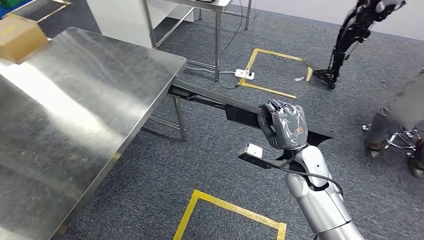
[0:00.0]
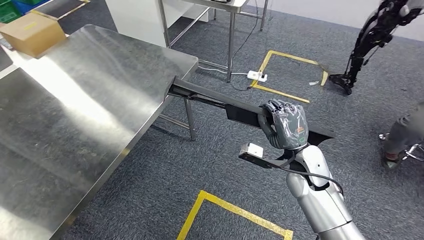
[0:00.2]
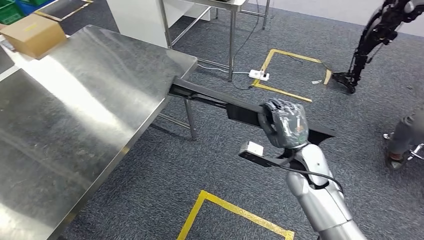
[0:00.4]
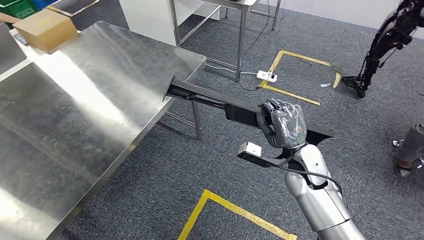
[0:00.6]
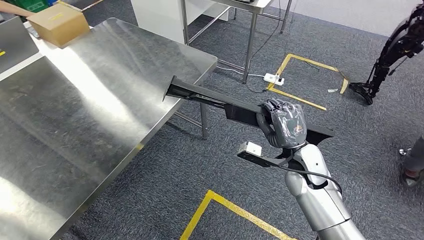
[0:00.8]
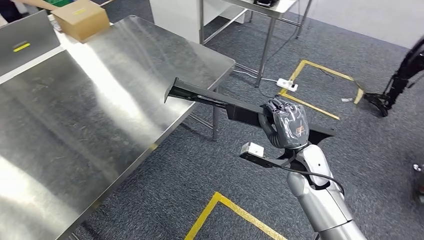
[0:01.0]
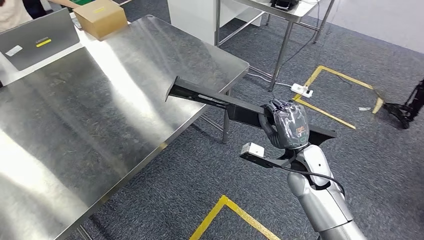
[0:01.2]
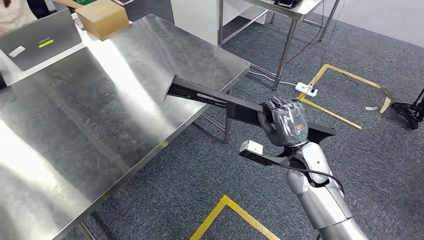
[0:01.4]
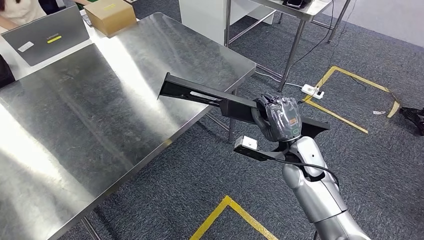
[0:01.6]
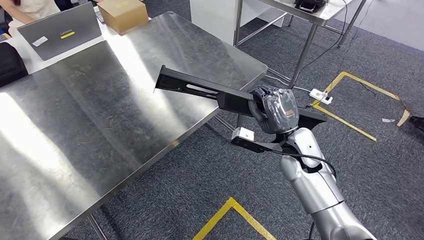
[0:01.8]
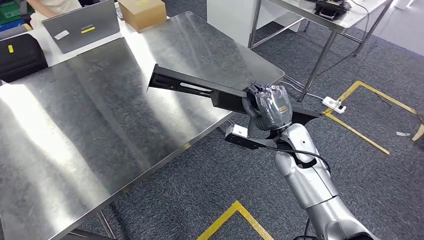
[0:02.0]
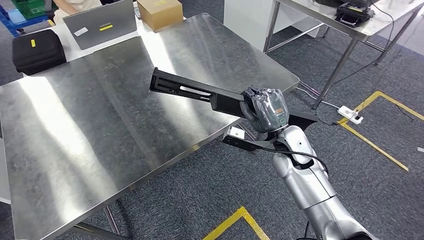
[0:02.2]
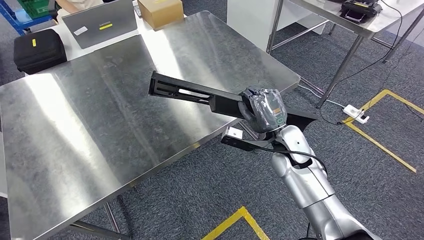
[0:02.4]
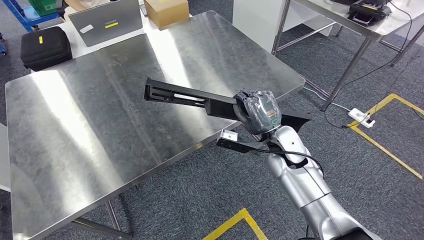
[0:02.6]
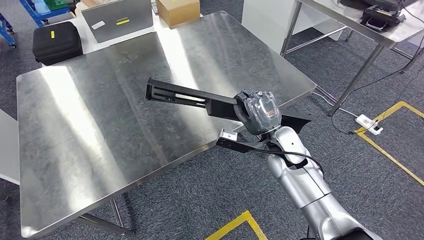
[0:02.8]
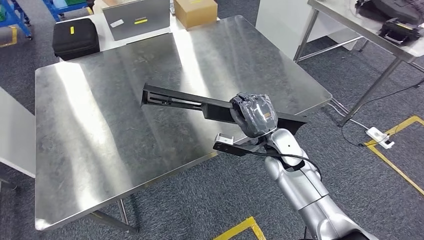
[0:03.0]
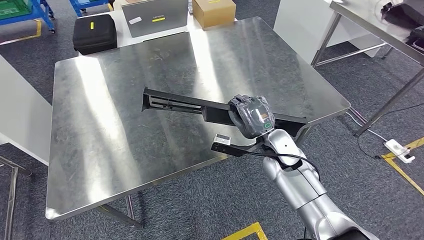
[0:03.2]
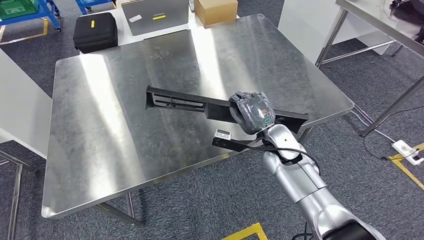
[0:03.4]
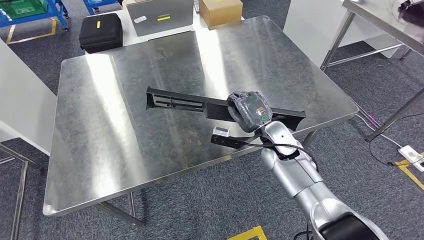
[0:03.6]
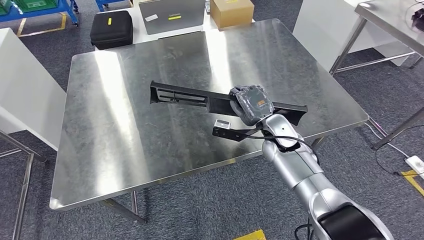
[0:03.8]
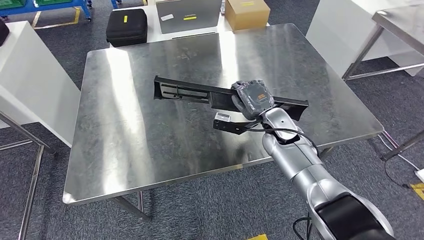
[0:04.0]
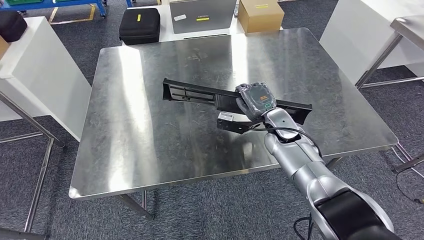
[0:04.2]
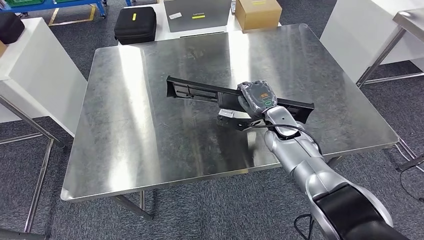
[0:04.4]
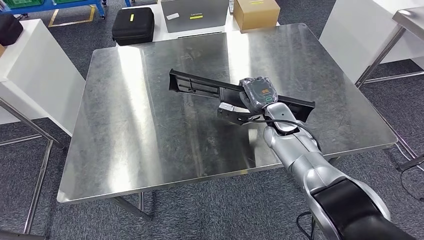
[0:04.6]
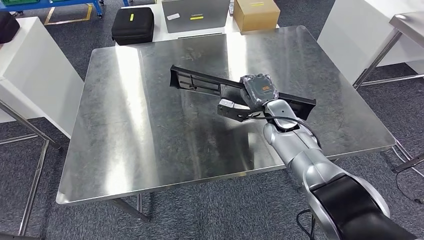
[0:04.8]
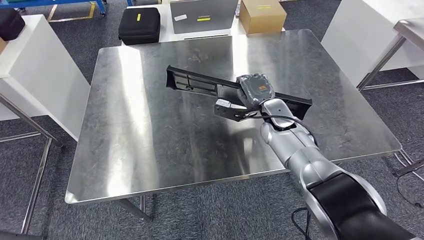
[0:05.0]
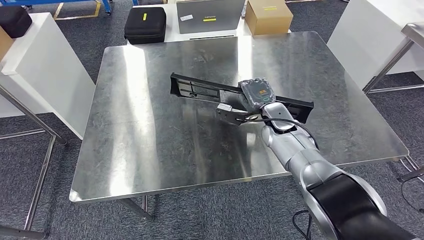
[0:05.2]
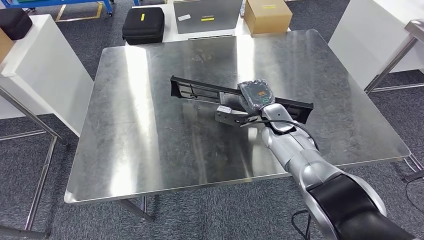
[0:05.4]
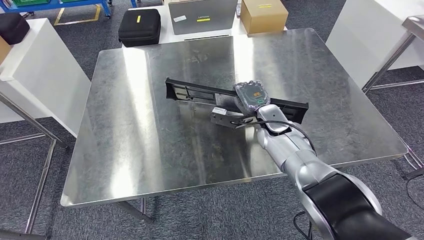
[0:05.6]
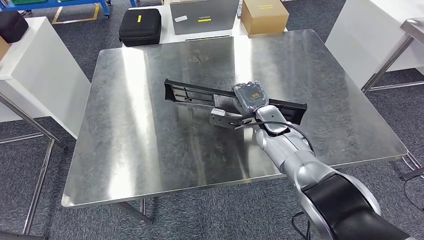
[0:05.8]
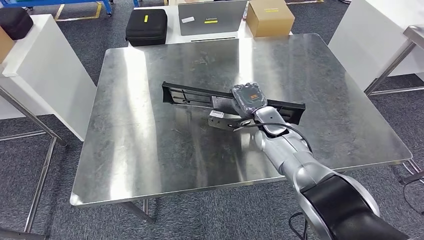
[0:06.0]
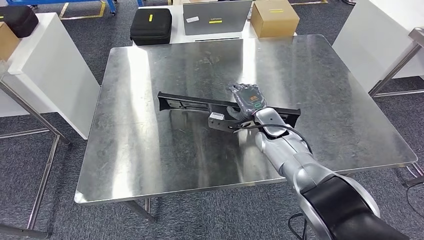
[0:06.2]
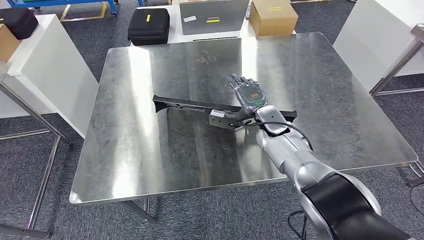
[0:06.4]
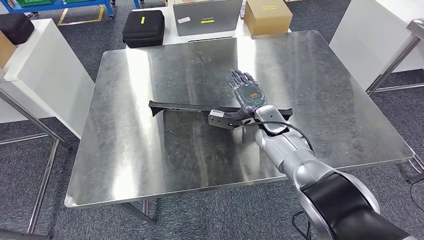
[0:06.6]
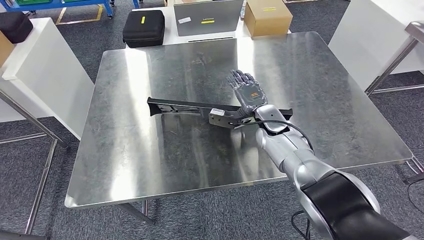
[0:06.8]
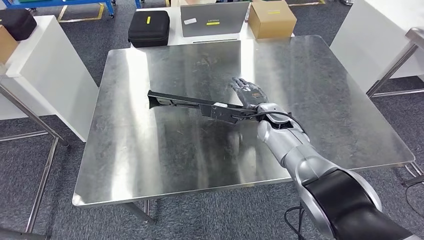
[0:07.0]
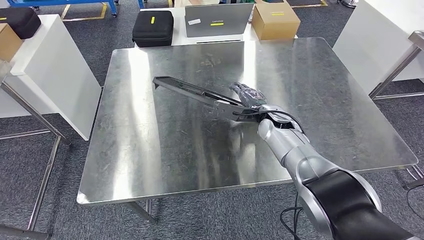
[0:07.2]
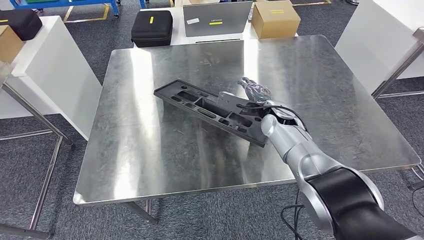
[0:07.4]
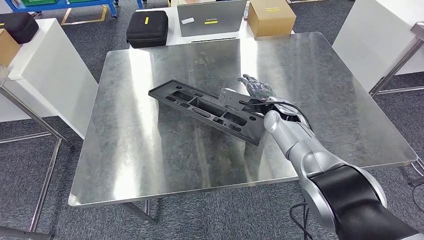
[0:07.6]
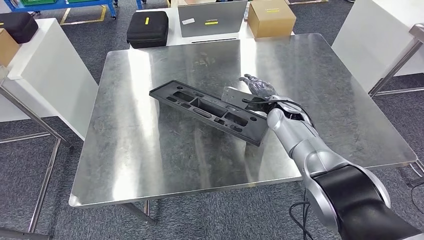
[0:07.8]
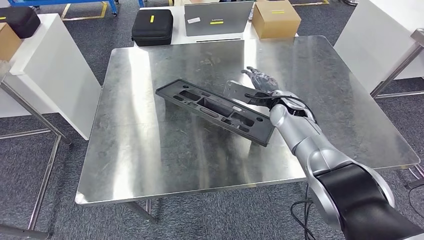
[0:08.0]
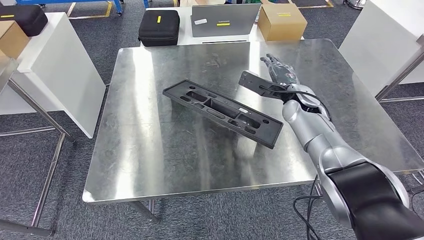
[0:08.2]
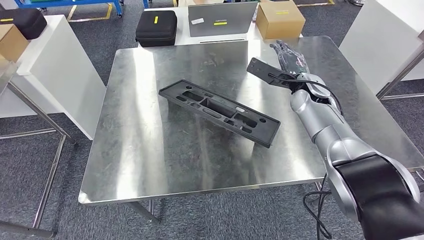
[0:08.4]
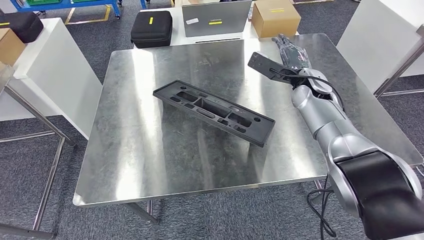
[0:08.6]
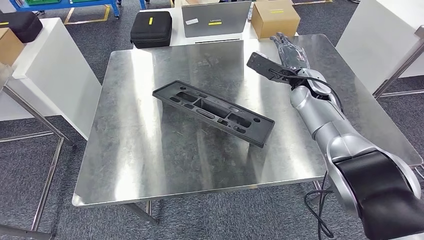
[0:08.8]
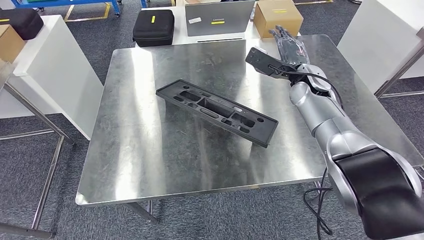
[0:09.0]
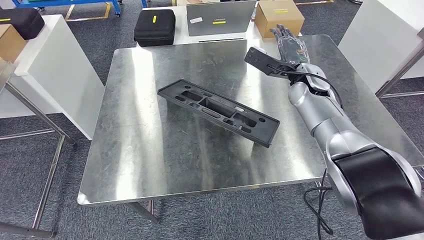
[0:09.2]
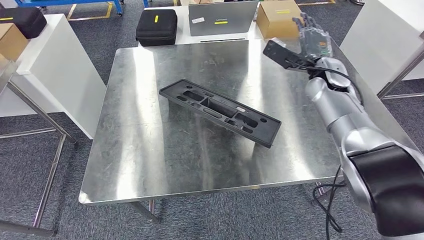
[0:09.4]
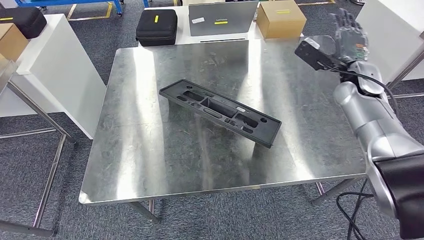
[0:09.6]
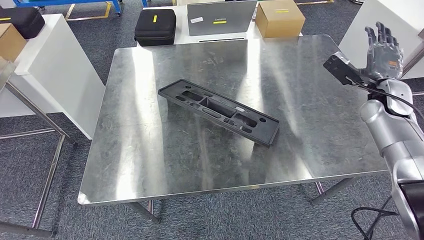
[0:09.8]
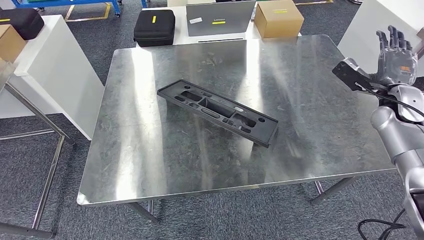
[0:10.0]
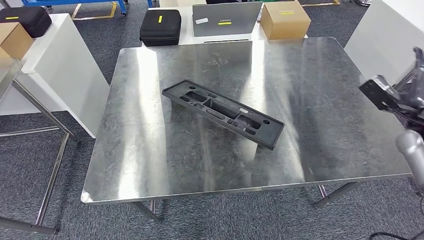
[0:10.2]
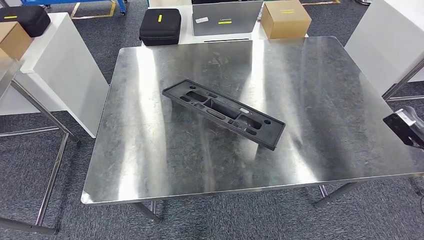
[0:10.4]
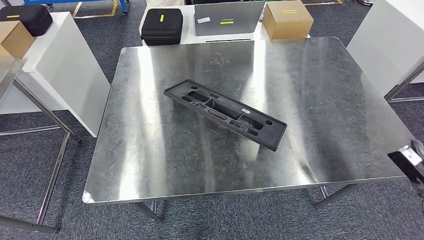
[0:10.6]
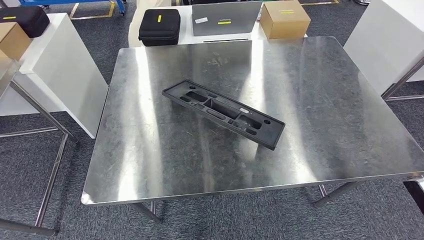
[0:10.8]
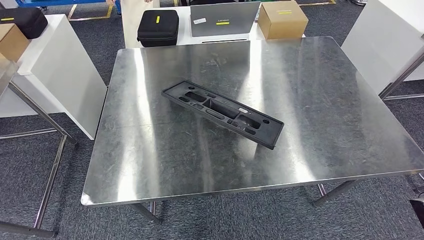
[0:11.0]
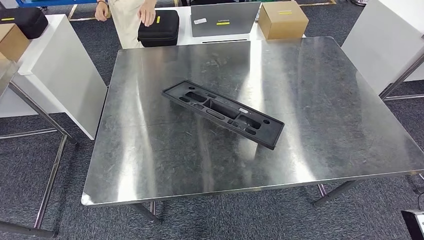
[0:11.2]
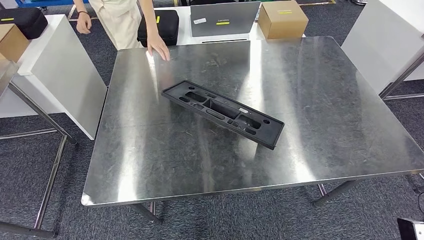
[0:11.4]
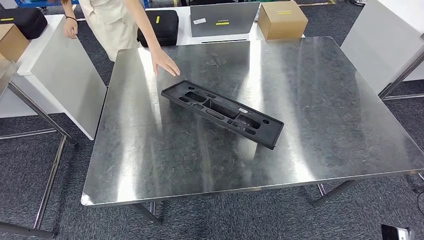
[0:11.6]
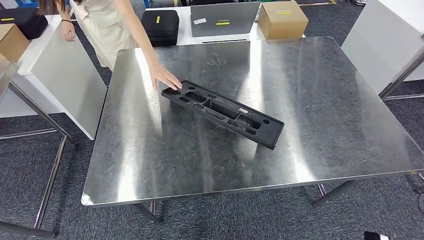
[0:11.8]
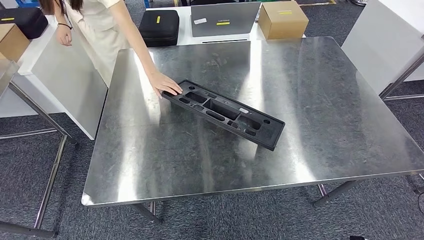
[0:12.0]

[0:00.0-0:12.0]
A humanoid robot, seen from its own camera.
Step, 0:00.0 to 0:04.0: Move the large material to the front of the workbench.
Step, 0:04.2 to 0:09.4: Insert the large material into the corresponding hole on the workbench.

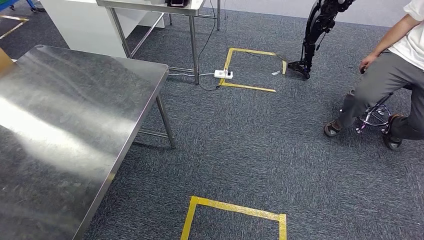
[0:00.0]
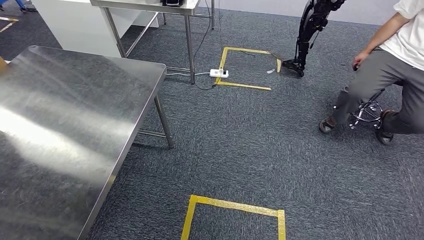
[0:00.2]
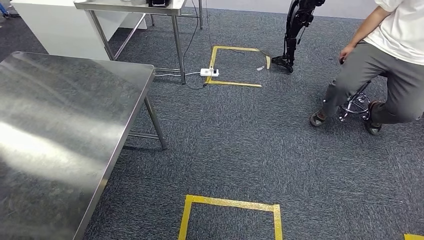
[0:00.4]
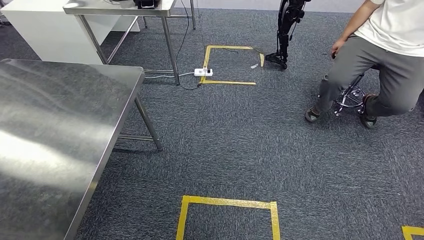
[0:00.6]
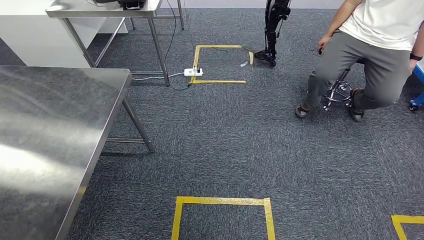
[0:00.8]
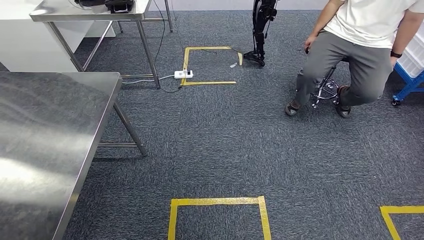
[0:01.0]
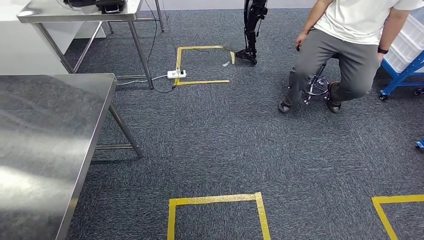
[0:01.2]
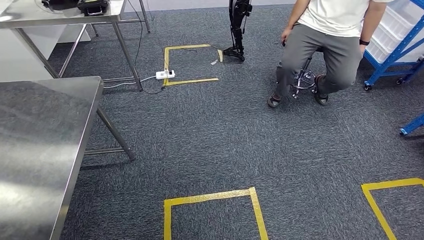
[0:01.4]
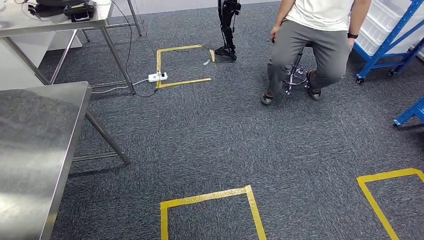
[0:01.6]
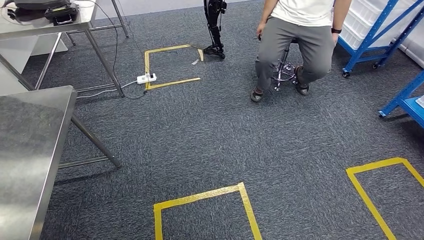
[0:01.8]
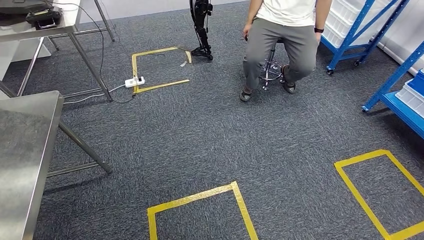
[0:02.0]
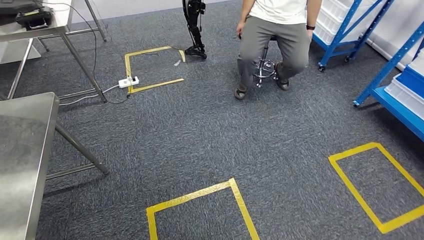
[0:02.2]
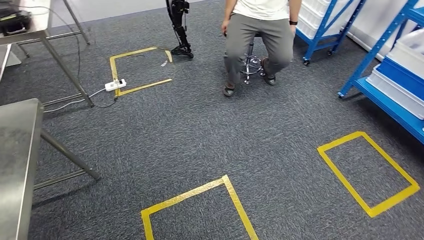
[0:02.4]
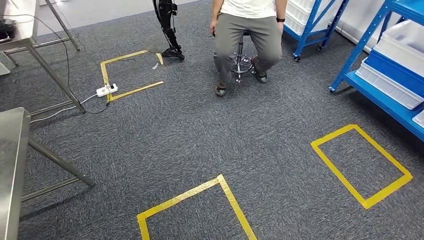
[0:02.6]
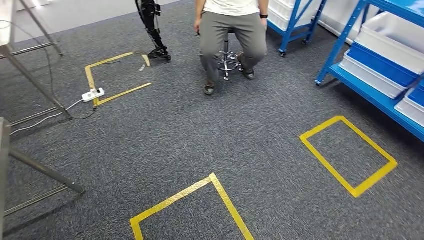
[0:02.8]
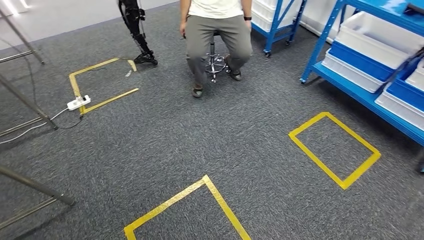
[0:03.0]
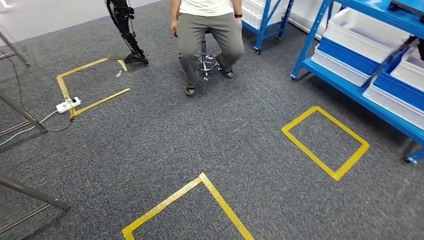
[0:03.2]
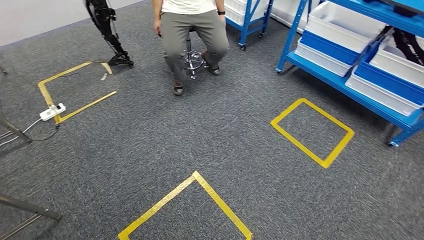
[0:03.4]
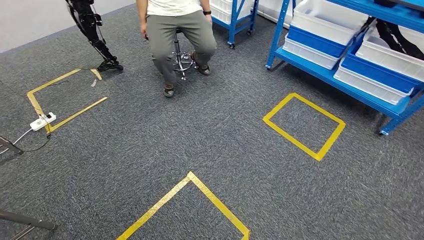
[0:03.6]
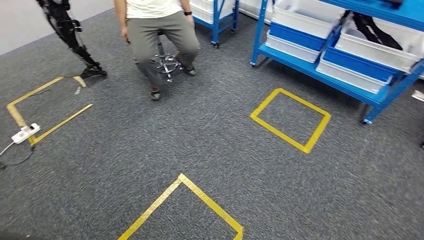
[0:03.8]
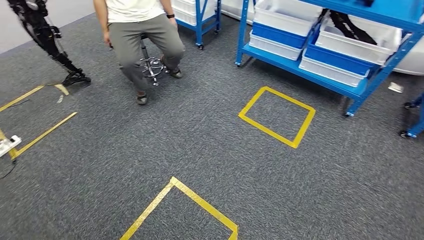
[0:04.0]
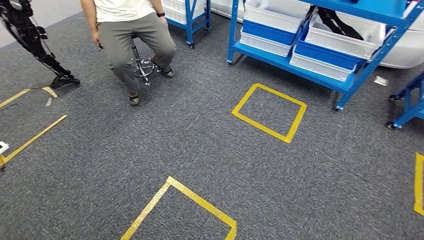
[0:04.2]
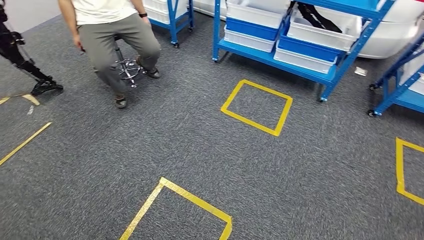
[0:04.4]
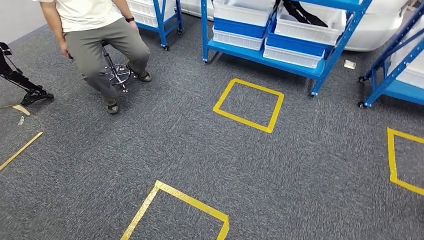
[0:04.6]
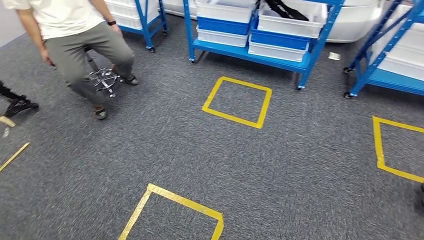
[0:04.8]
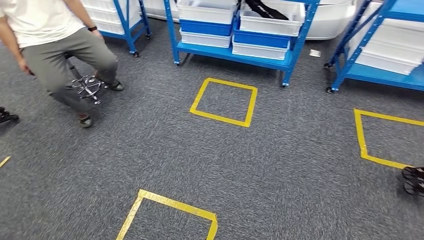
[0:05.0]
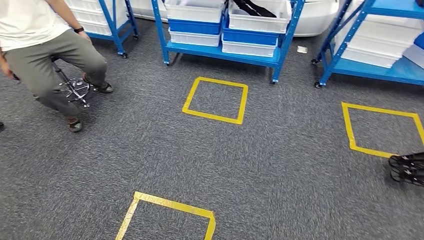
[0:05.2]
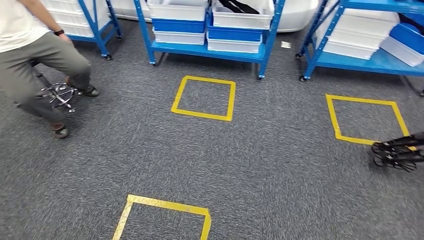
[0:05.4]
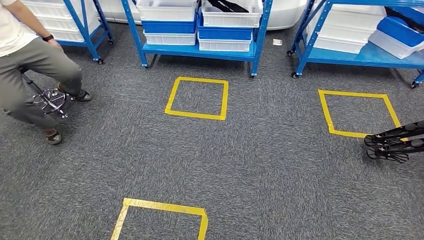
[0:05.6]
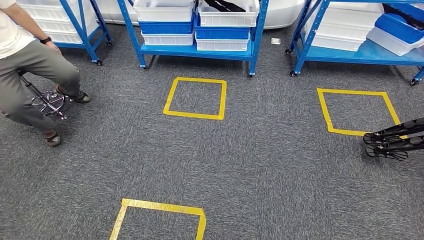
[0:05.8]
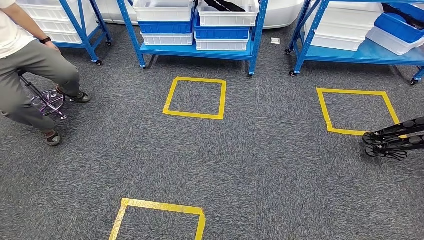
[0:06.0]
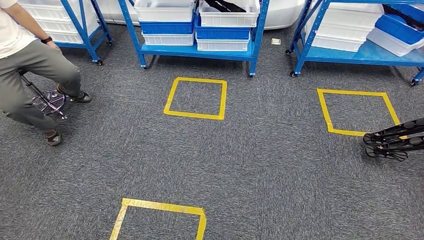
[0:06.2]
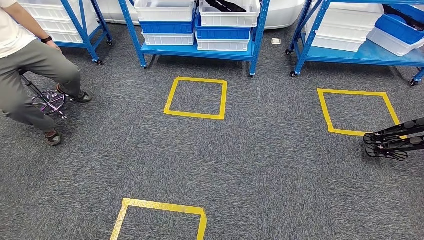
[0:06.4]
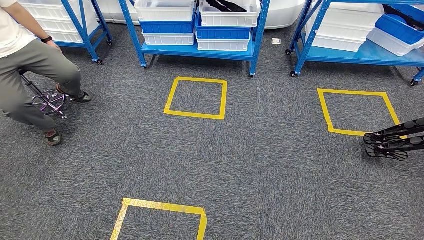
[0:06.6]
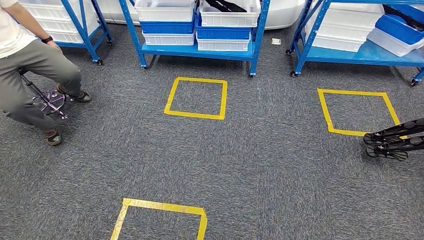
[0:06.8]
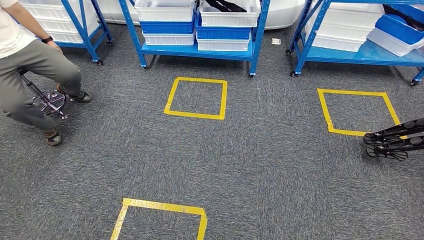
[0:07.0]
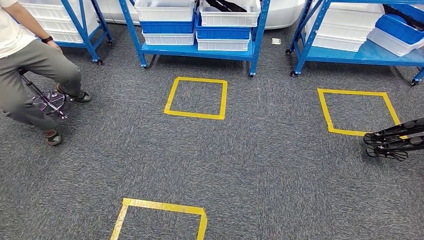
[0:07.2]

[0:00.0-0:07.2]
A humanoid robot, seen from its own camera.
0:05.8 to 0:07.2: Neither hand changes place.
